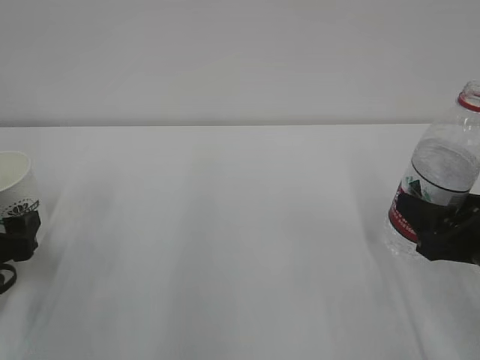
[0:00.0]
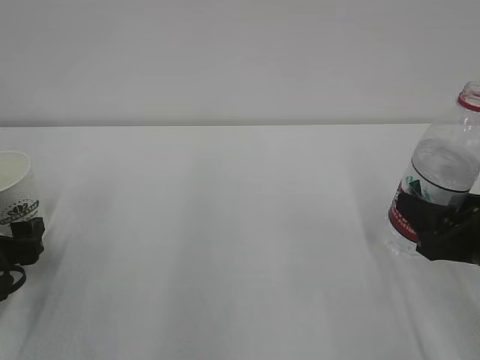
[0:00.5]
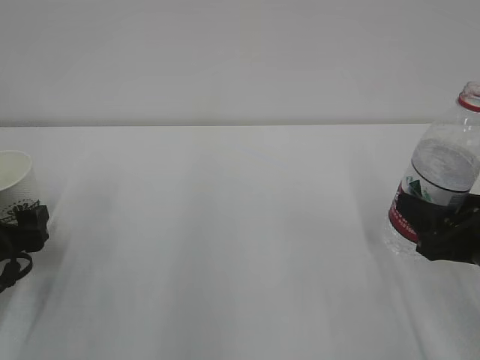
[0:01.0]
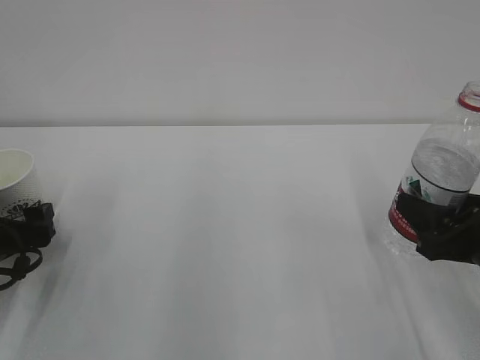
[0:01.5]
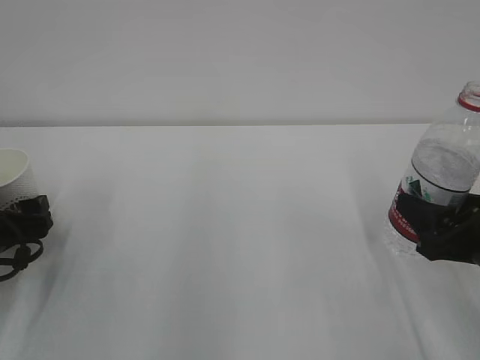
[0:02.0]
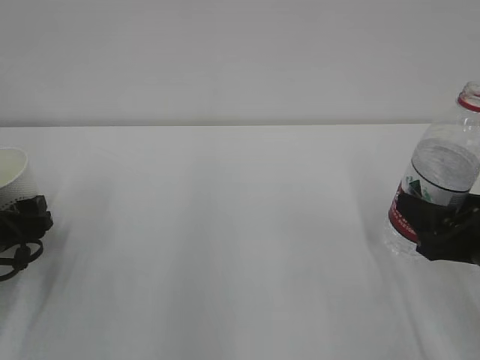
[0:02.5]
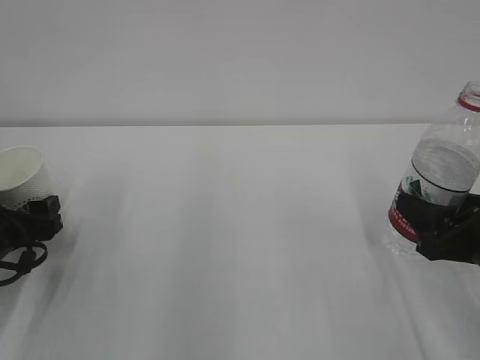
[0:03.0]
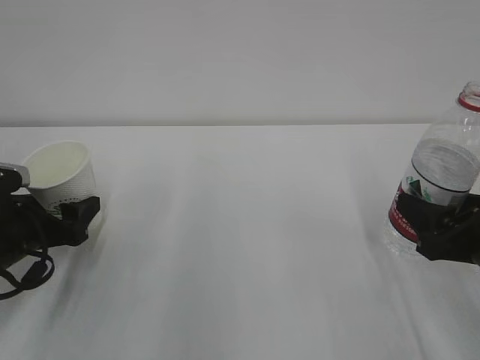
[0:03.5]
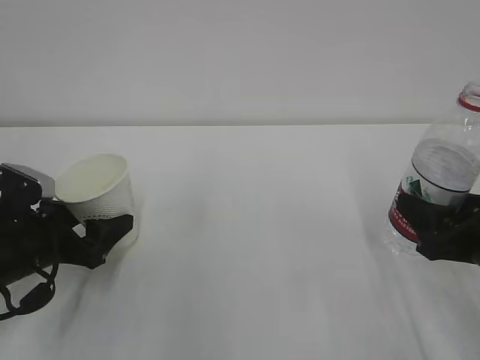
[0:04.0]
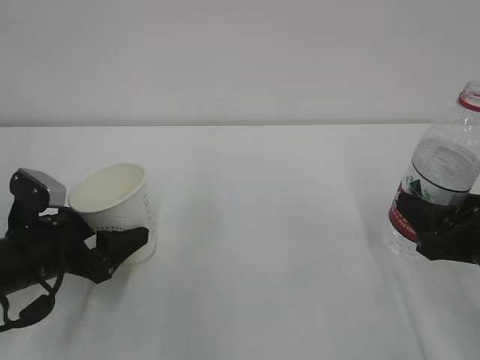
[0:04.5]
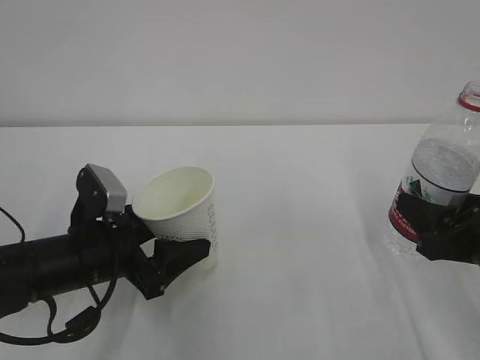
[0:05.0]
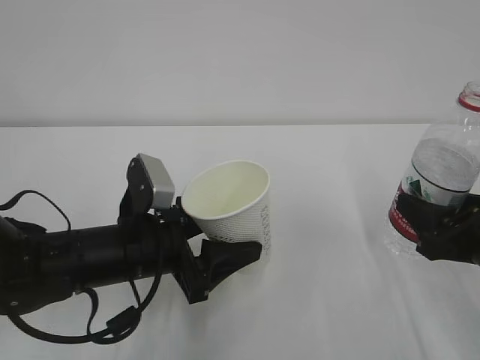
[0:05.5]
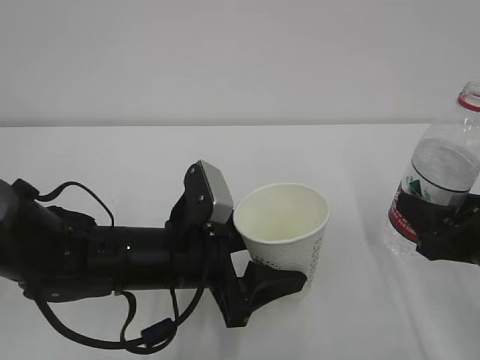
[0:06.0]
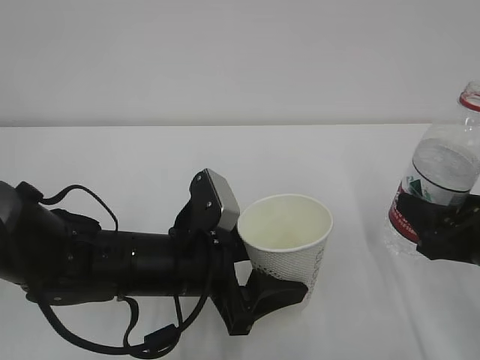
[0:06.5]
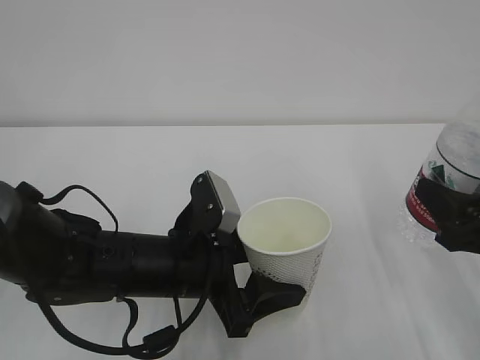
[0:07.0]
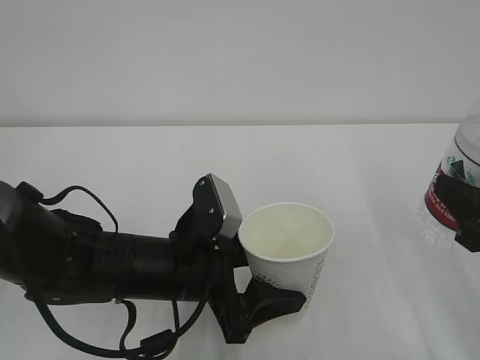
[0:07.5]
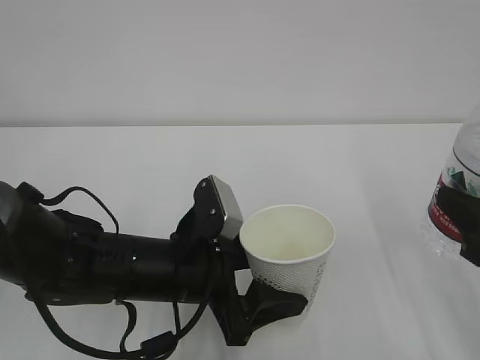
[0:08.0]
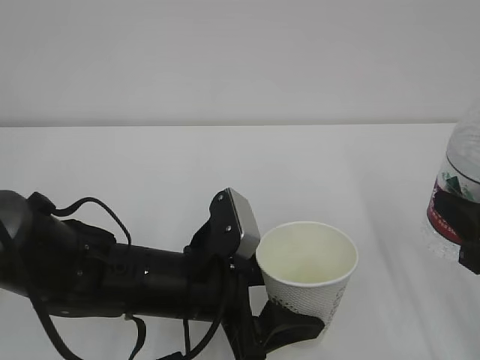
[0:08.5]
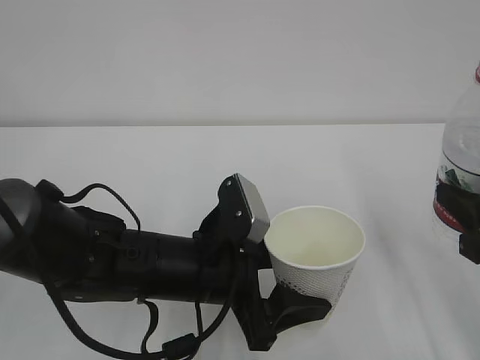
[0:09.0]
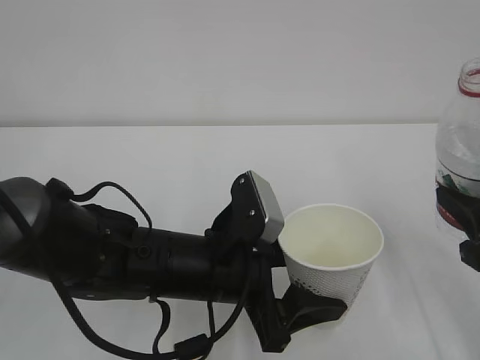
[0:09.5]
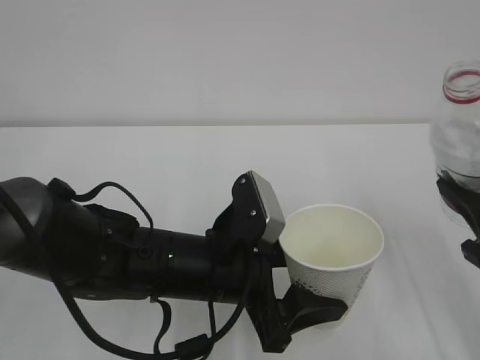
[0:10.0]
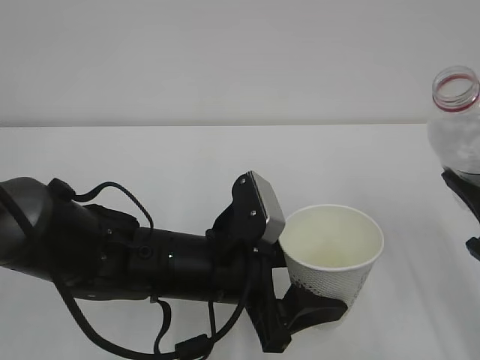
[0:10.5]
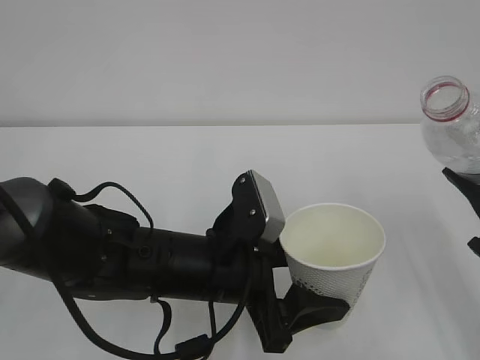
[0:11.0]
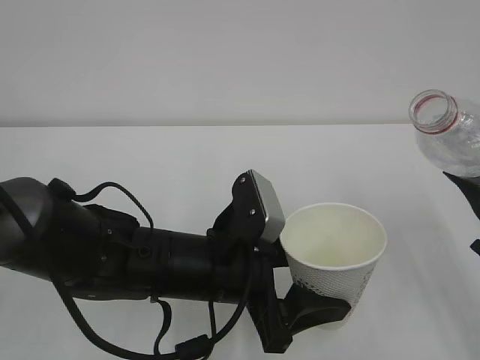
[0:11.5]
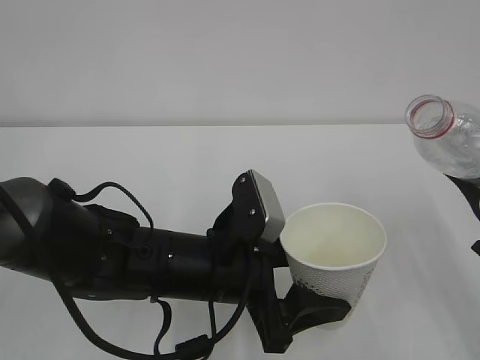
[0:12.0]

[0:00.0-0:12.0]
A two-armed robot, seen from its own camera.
0:00.0 to 0:02.0: There are only small adjustments of the grippers.
0:02.0 to 0:04.0: The left gripper heads to the right, covering about 5 cm, and closes its fingers.
0:04.0 to 0:06.0: The left gripper travels to the right by roughly 20 cm.
0:06.0 to 0:08.0: The right gripper goes some 5 cm upward.

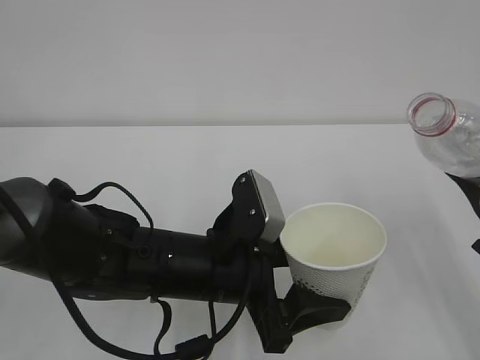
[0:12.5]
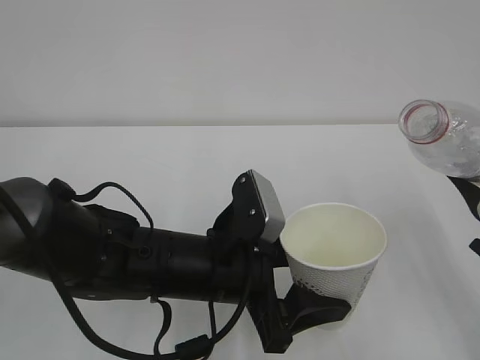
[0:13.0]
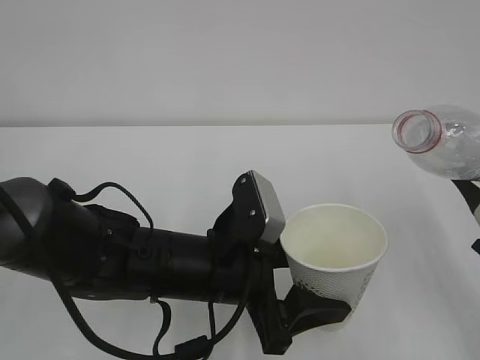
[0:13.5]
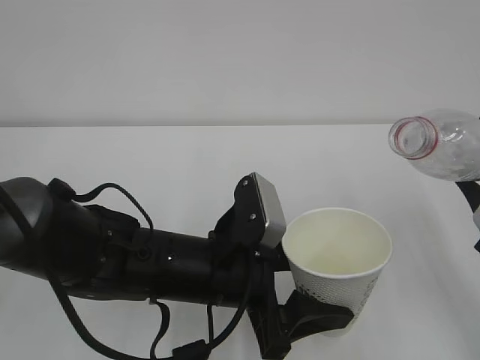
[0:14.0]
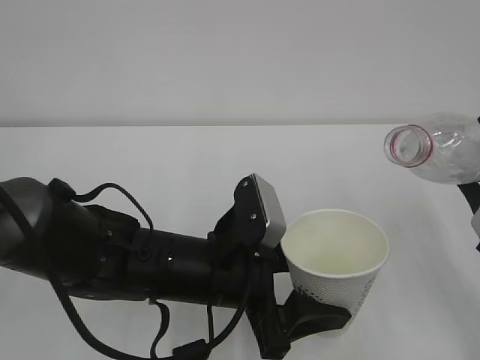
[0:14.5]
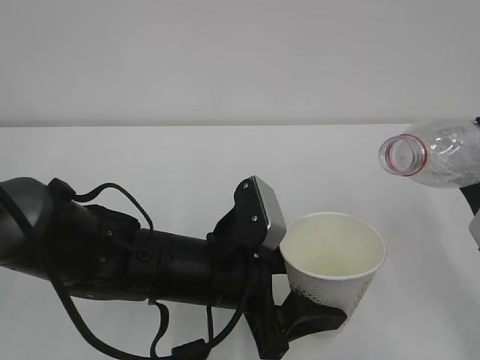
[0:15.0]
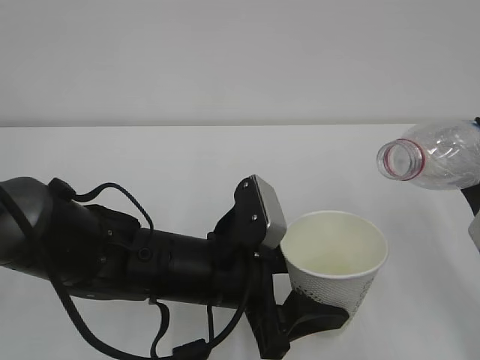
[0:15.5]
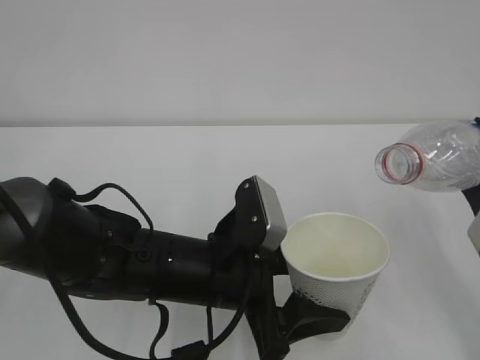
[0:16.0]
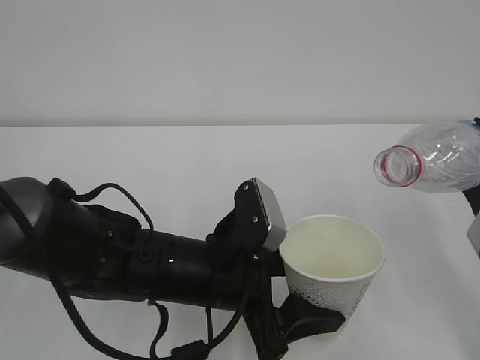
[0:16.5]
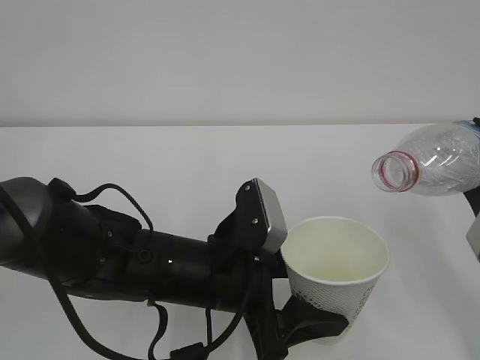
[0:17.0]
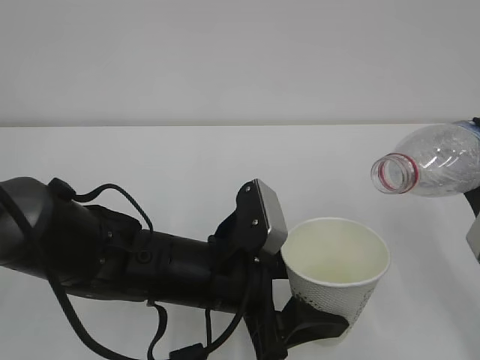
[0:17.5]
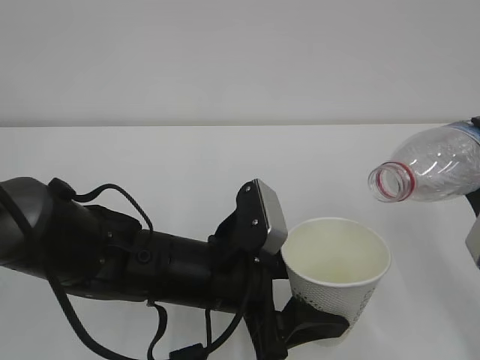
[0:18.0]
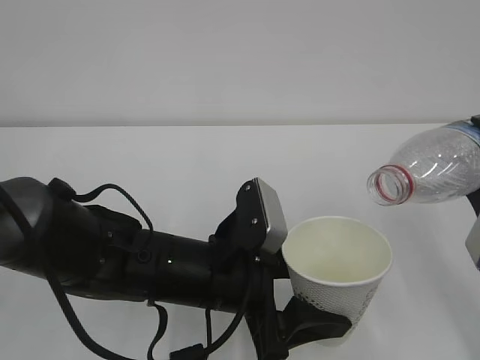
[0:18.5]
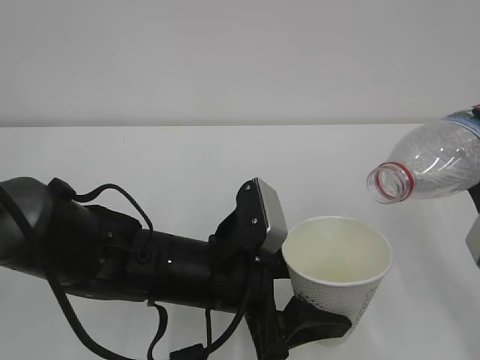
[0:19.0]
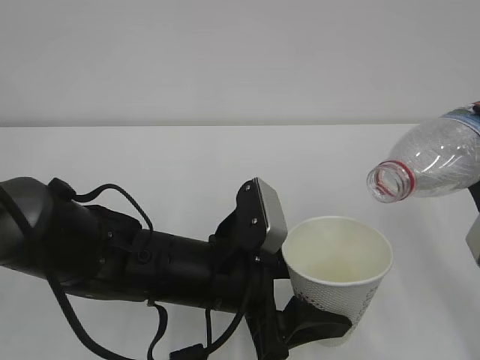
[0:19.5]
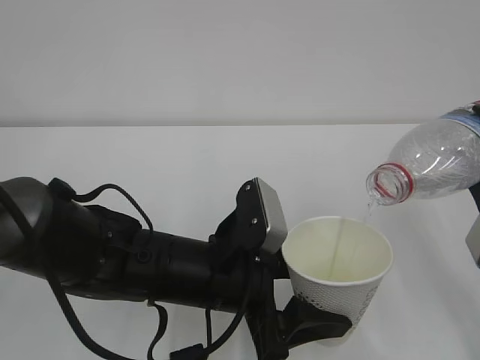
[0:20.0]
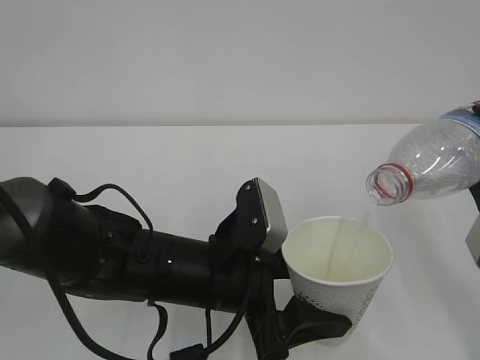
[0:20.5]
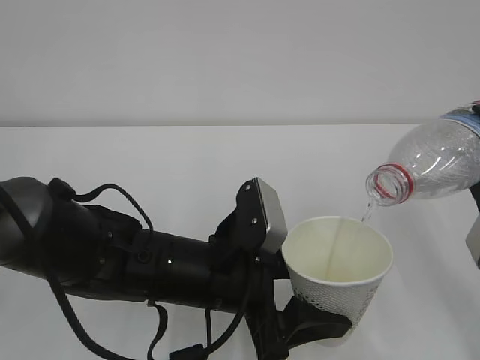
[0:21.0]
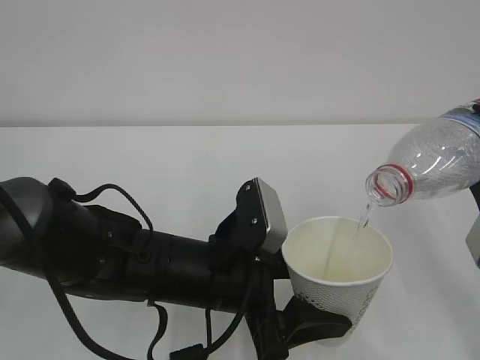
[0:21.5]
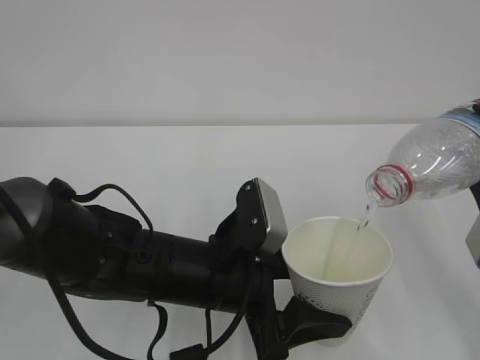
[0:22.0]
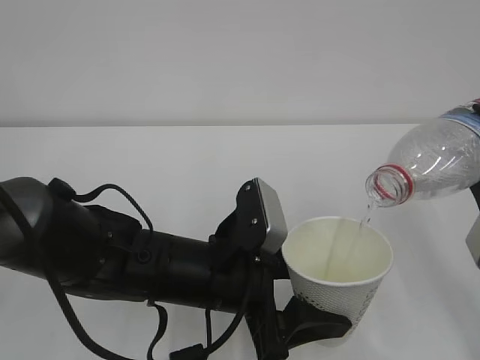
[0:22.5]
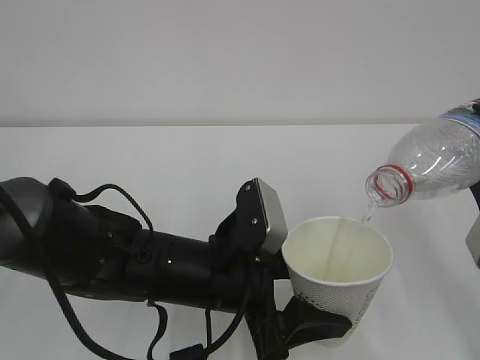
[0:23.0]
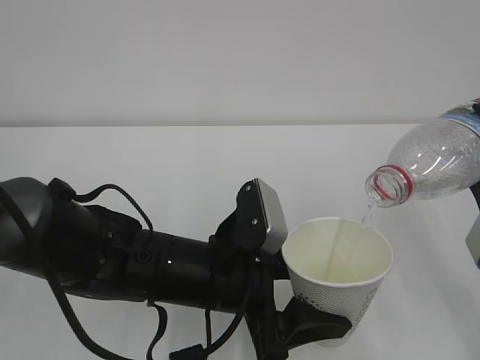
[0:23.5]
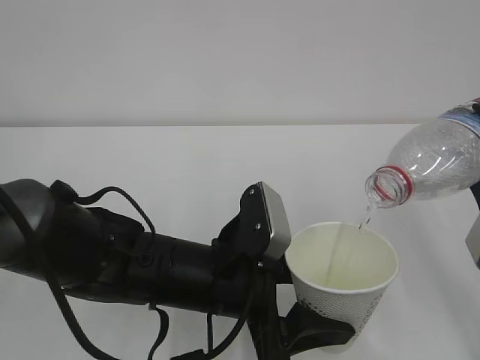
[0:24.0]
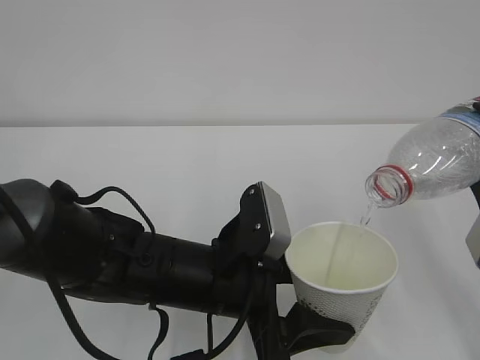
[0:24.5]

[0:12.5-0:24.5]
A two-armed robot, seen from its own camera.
0:12.5 to 0:14.5: There are only small adjustments of the grippers.
0:14.5 to 0:18.5: The grippers make only small movements.
0:18.5 to 0:20.5: The two grippers keep their place.
0:20.5 to 0:24.5: Both grippers stay put.

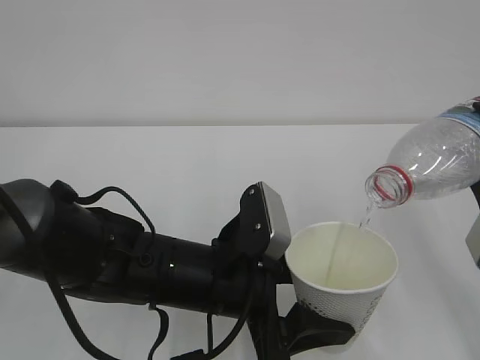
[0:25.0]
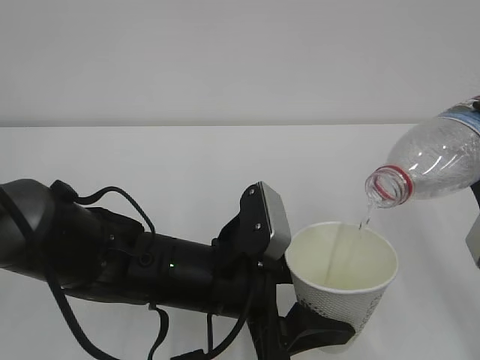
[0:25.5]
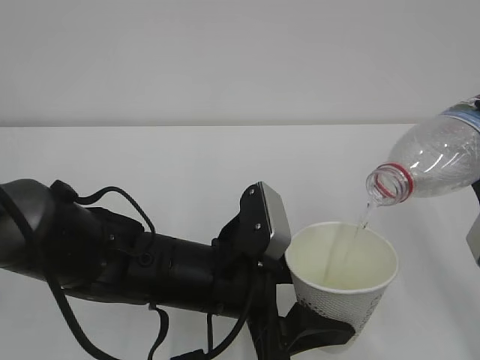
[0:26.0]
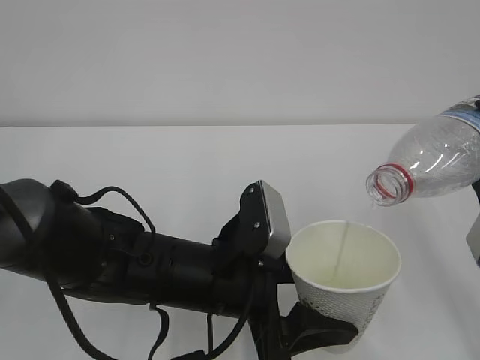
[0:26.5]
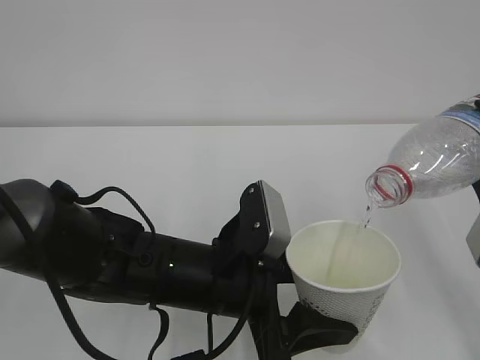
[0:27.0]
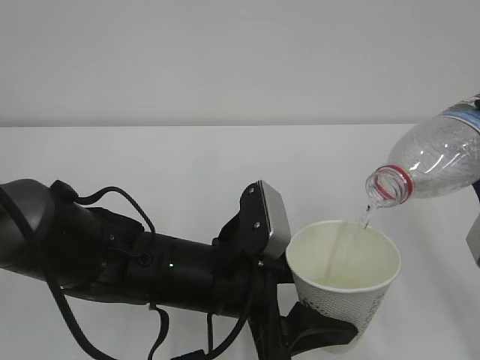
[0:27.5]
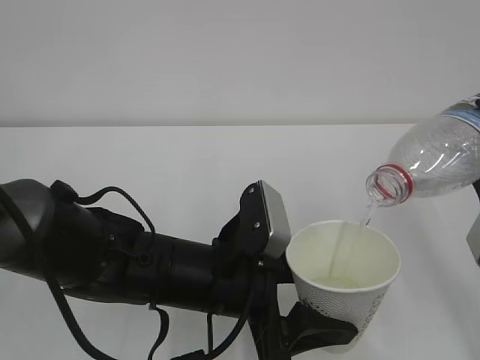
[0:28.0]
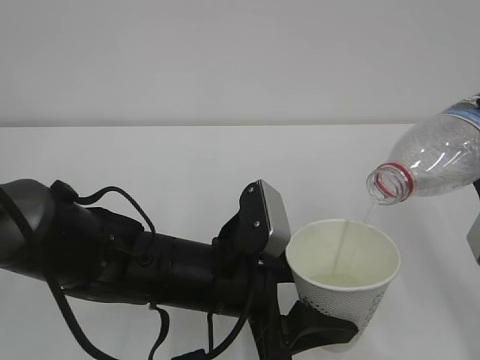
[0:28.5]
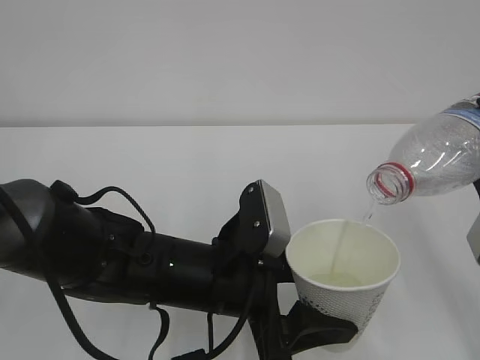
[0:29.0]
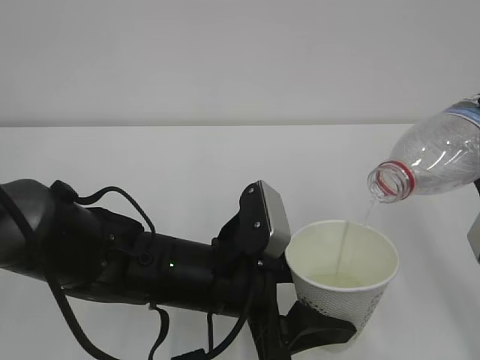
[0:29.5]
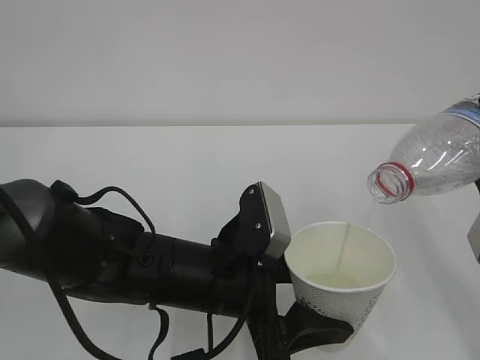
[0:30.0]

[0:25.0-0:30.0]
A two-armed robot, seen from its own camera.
0:25.0 to 0:30.0: Both grippers stay put.
